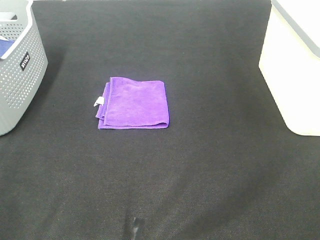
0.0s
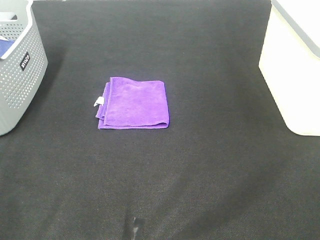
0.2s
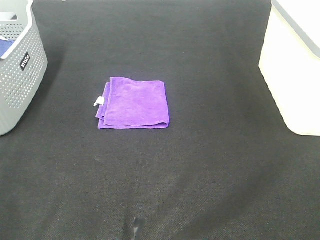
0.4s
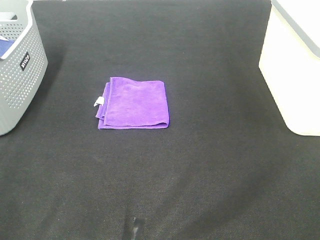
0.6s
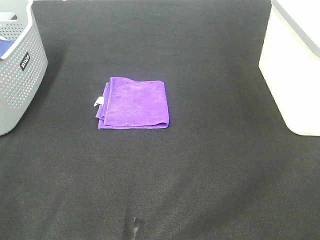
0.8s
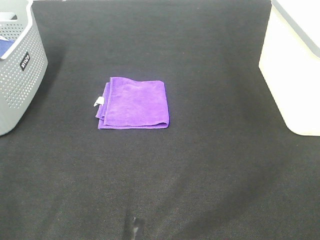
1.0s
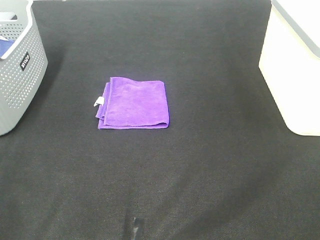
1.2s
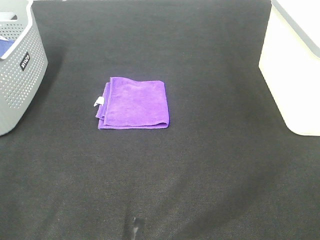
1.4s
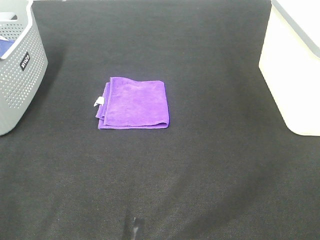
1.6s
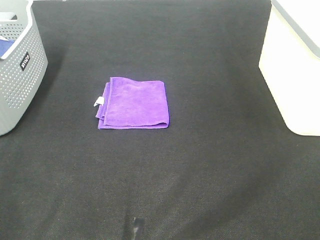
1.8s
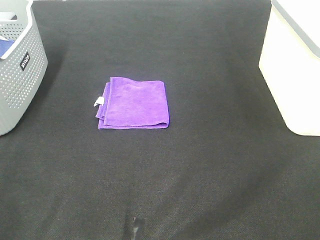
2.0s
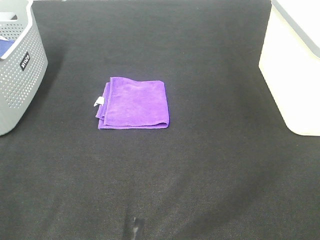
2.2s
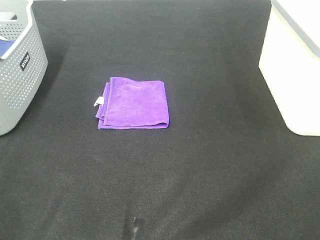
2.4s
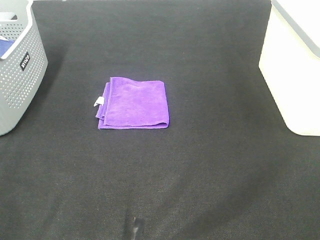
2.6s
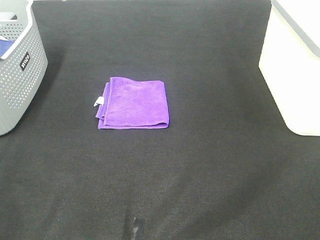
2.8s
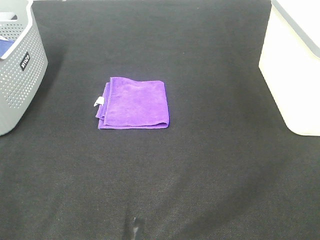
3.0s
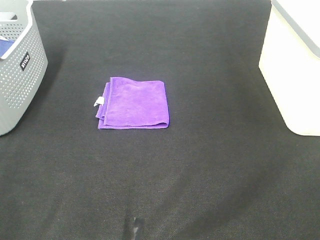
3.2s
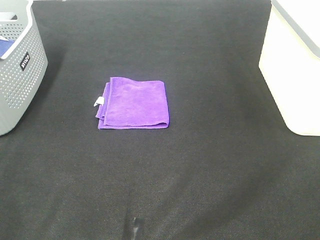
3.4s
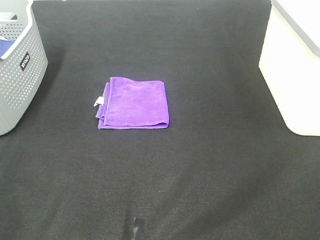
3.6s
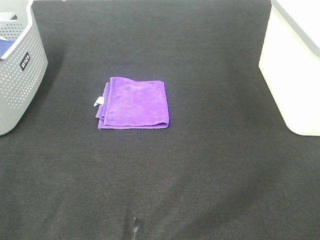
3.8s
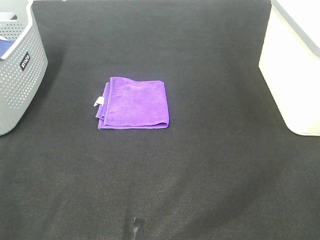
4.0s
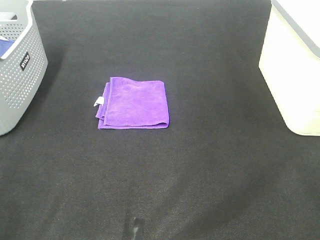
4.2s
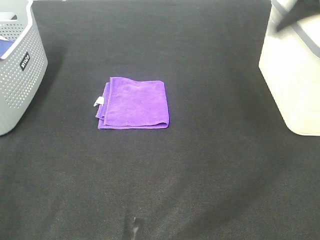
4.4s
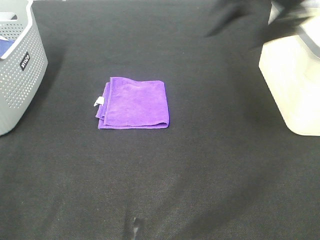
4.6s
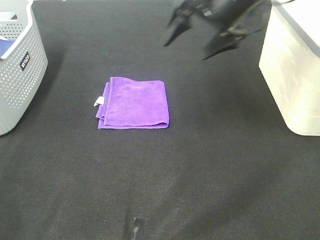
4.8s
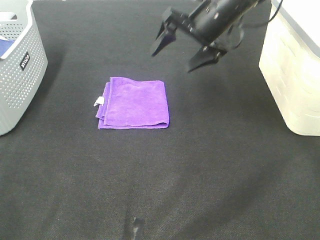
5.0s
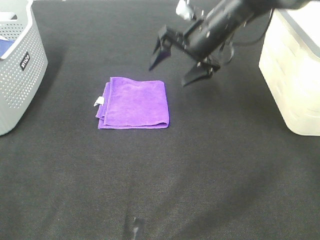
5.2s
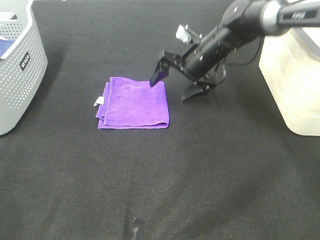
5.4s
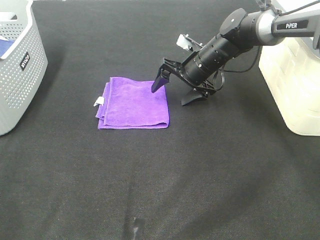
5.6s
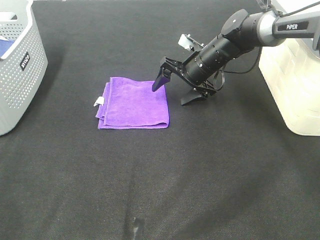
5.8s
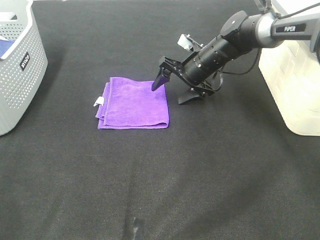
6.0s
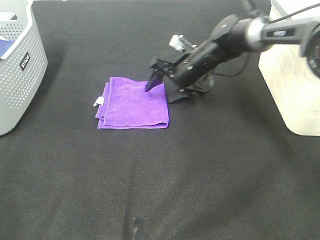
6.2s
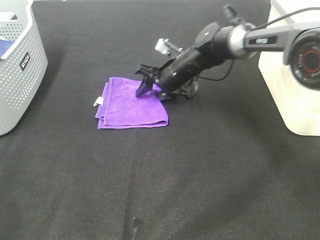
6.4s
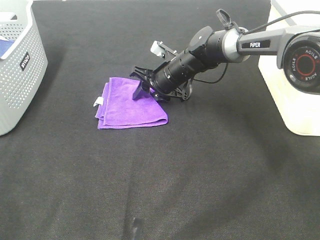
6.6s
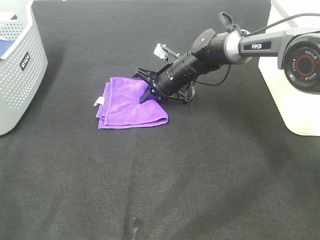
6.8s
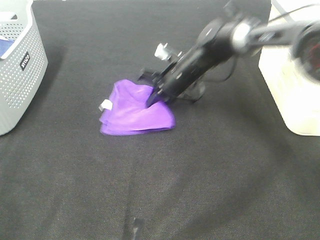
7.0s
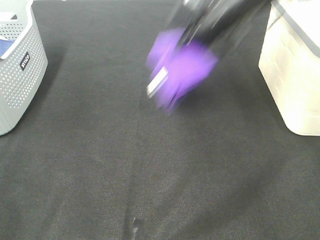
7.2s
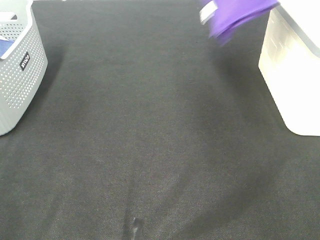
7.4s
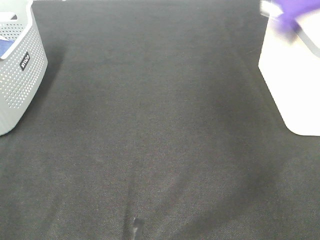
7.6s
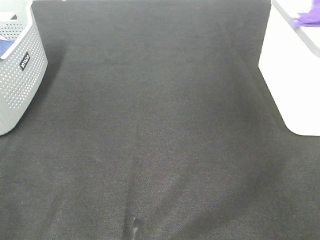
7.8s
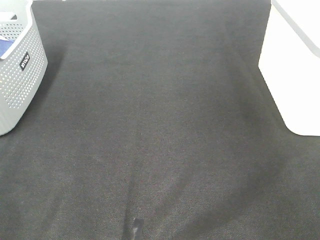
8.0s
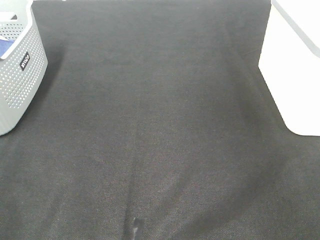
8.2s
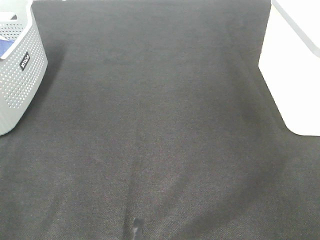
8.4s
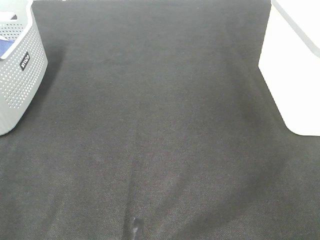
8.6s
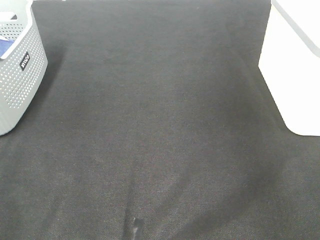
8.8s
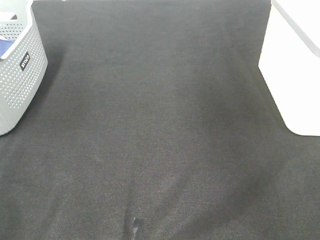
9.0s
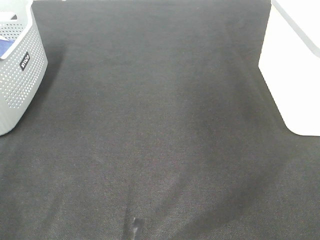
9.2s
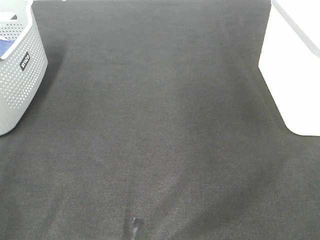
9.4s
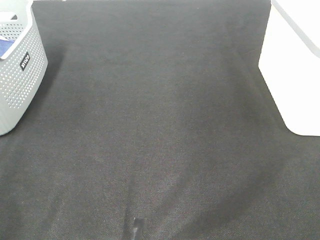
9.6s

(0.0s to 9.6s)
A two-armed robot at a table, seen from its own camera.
Step, 0.0s - 6.8s: Right hand: grab the folded purple towel.
Step, 7.0s - 8.4s: Right hand: place the purple towel in right basket.
0.0s - 3.2s: Both grippers stay put.
3.2s - 4.8s: The right gripper moves forward, about 40 cm.
4.8s - 6.4s: The right gripper shifts roughly 20 cm downward, and closes up.
6.4s - 8.0s: The right gripper heads to the right and upward, covering approximately 50 cm, and closes up.

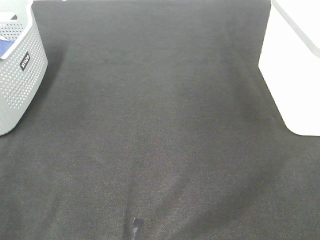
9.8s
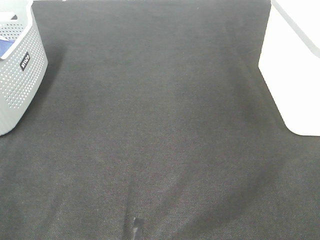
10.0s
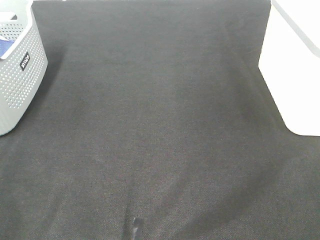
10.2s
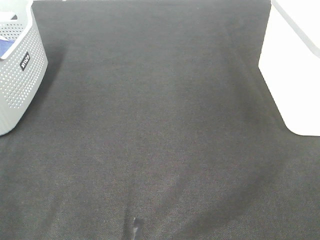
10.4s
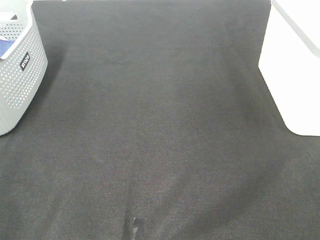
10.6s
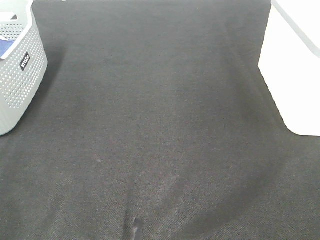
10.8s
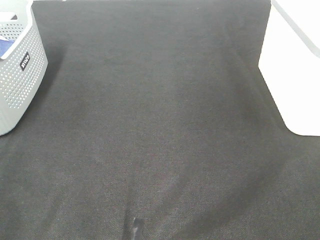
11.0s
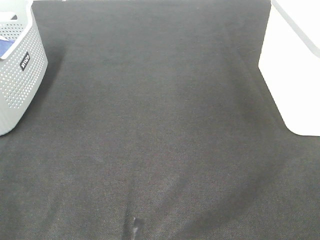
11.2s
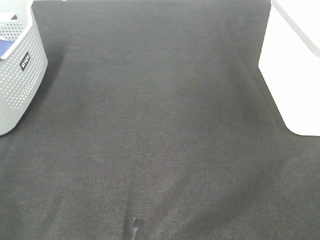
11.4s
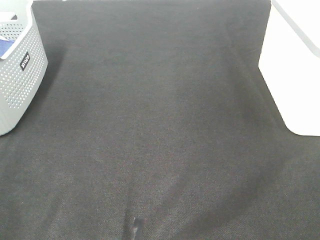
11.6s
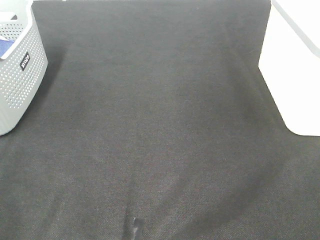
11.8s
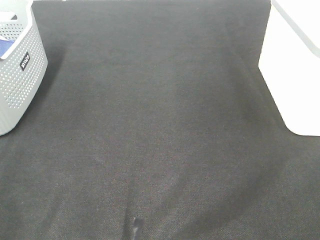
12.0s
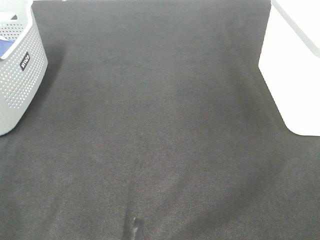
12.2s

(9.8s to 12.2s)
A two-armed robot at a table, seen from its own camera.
11.0s - 12.2s: Both grippers stay about where they are.

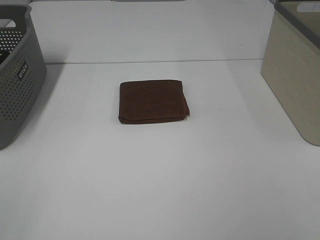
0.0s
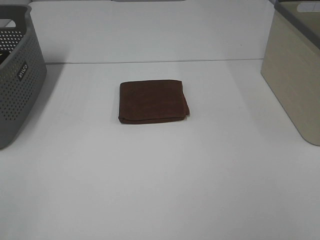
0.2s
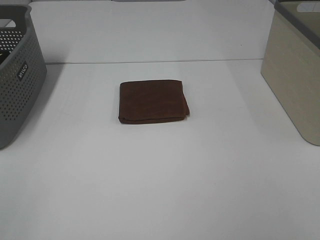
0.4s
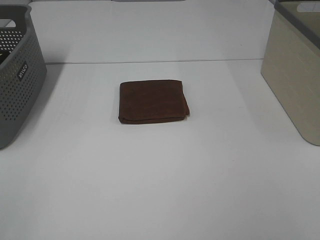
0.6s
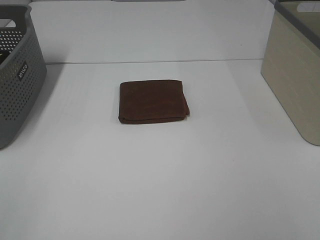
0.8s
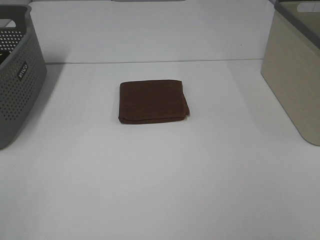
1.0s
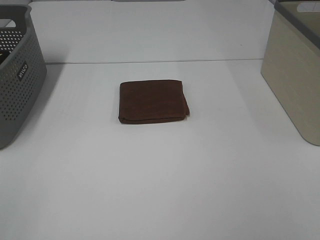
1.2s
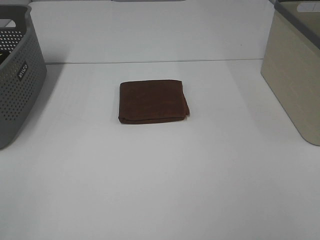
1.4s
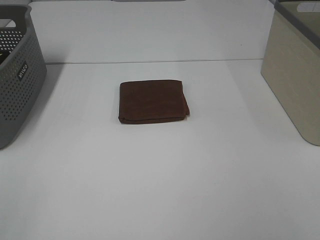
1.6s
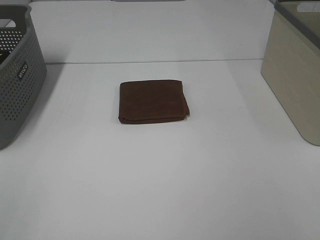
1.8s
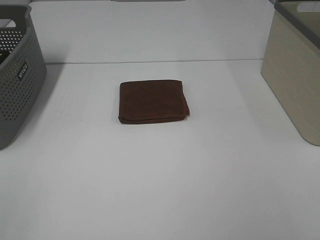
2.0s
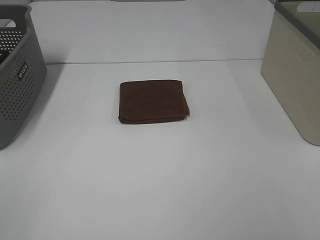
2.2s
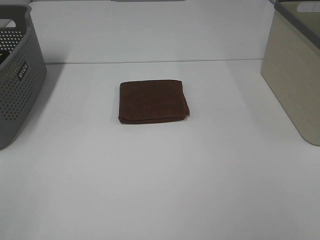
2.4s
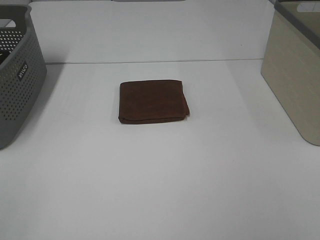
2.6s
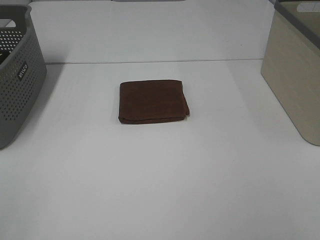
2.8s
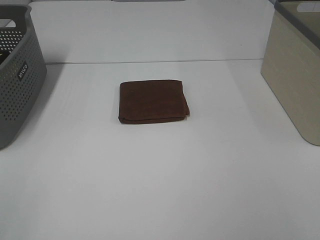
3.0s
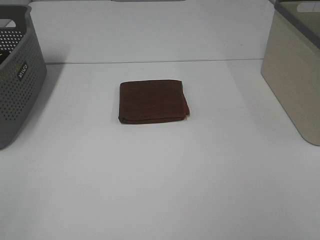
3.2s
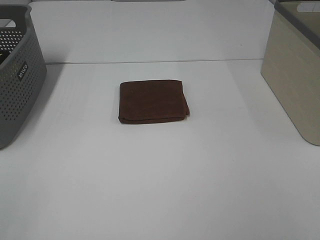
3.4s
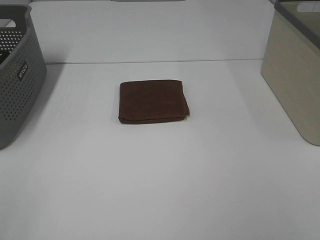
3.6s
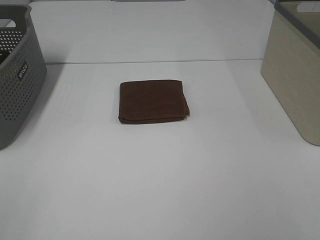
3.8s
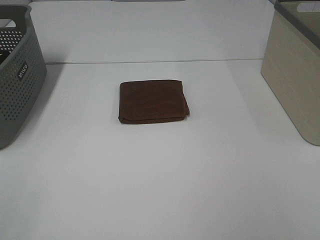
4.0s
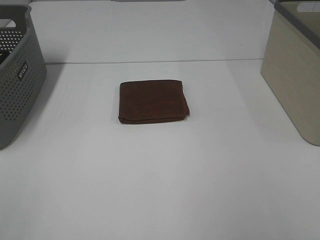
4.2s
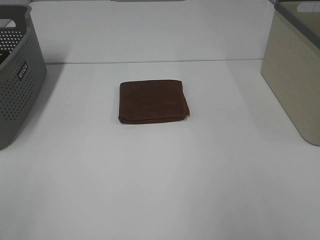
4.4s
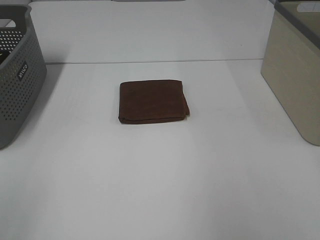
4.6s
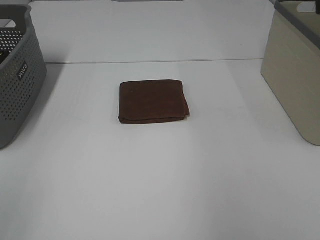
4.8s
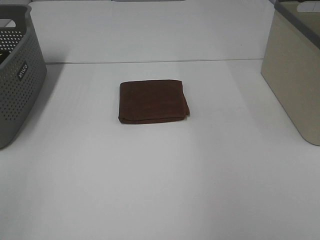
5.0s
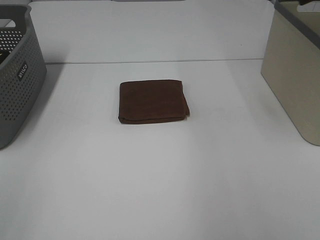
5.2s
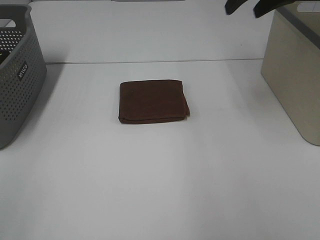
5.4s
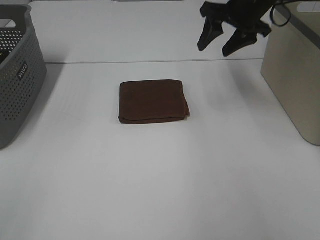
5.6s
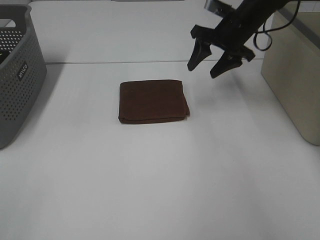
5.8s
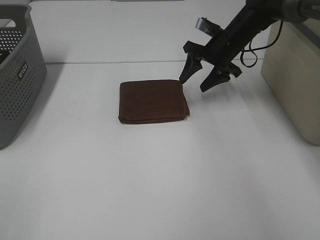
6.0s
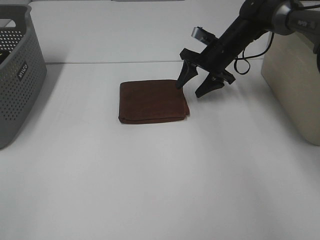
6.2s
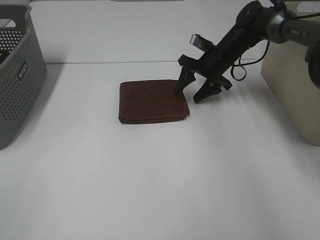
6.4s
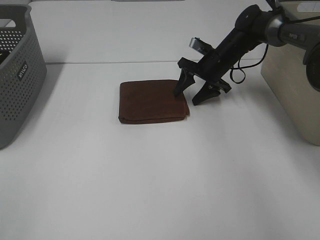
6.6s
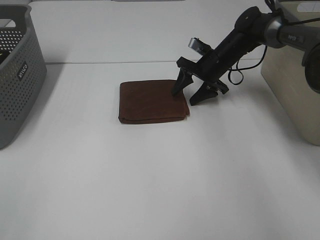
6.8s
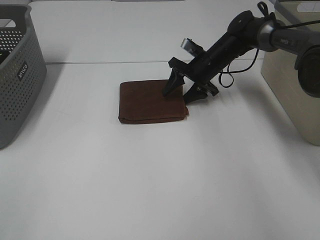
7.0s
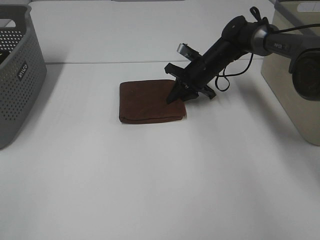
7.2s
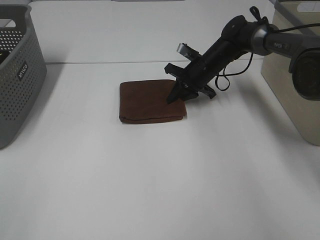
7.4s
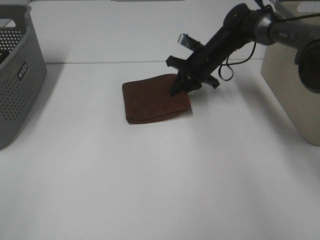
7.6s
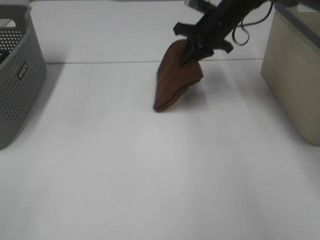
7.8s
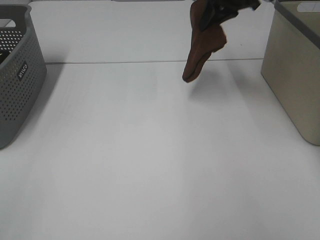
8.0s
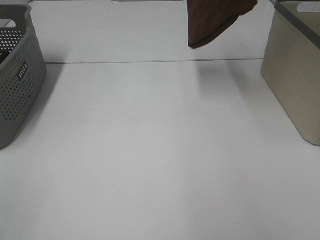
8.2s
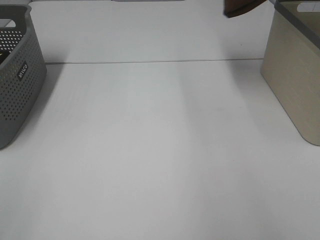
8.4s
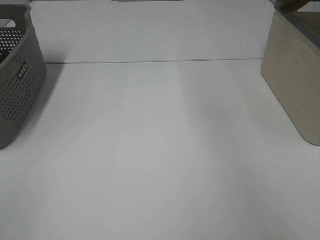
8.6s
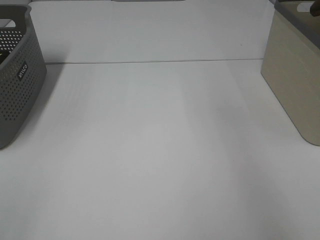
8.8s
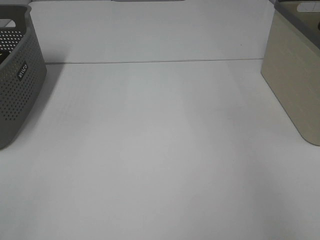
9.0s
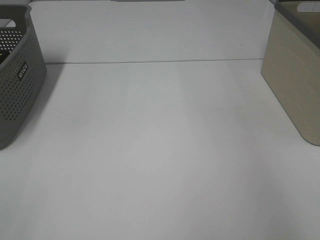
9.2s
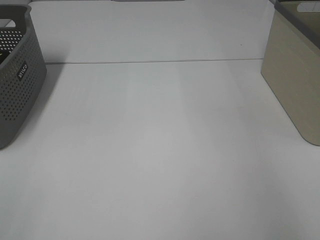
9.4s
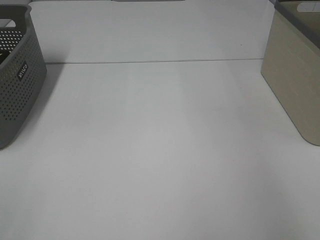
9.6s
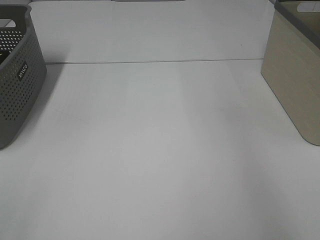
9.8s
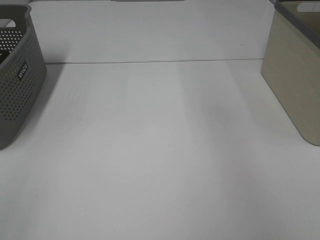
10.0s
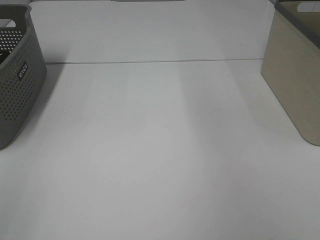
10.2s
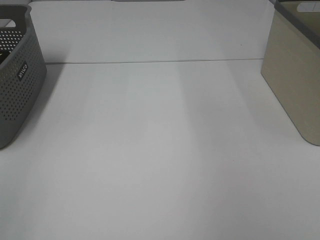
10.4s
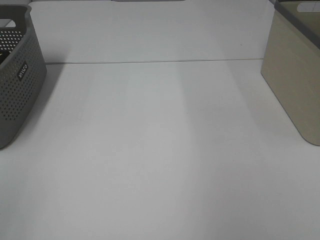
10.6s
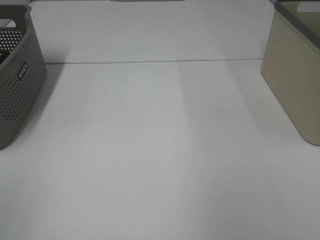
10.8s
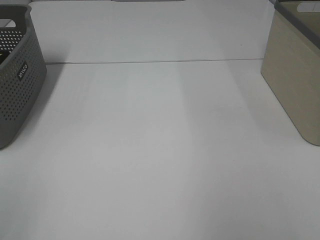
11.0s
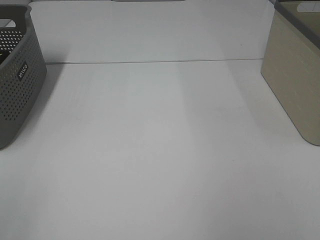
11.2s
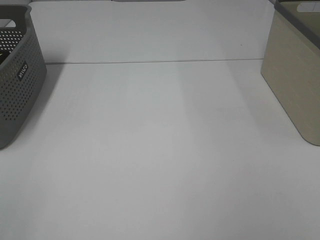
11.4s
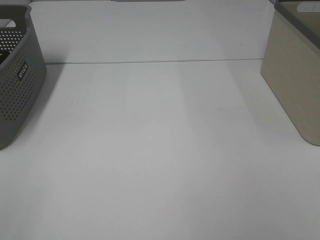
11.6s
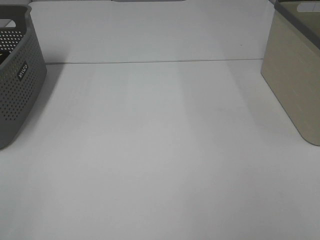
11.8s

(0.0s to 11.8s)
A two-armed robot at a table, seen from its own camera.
Step, 0.0s - 7.2s: Right hand: grab the folded brown towel.
Step, 7.4s - 9.6s: Right hand: place the brown towel in right basket.
0.0s - 3.0s: Both grippers stay put.
4.4s - 6.0s: The right gripper is displaced forward and downward by about 40 cm.
6.0s - 7.4s: The right gripper is displaced downward by some 5 cm, and closes up.
7.4s - 8.8s: The right gripper travels upward and to the right by some 40 cm.
